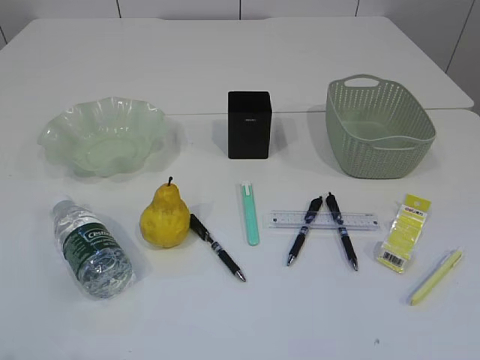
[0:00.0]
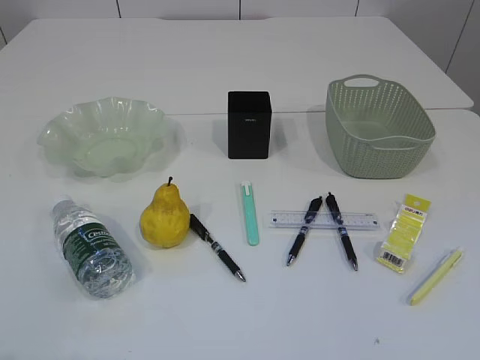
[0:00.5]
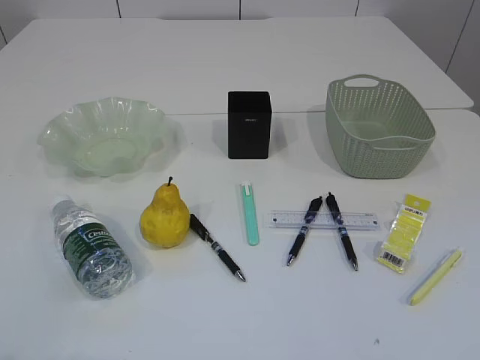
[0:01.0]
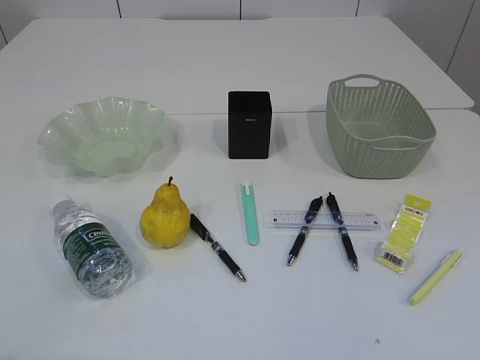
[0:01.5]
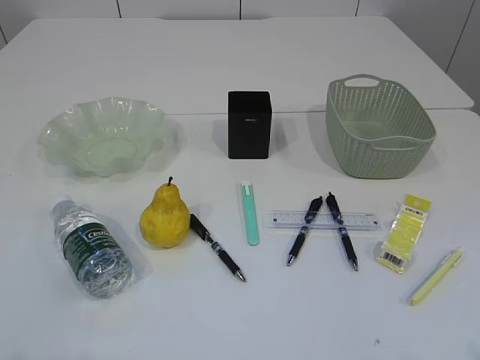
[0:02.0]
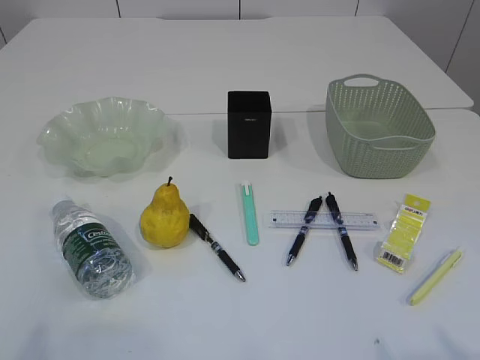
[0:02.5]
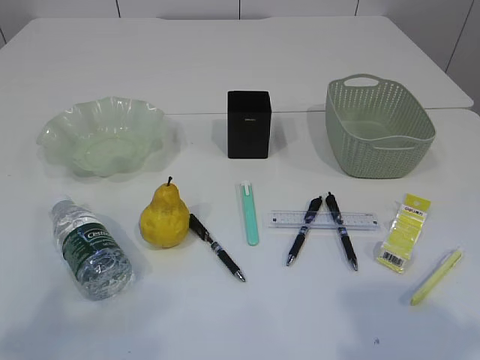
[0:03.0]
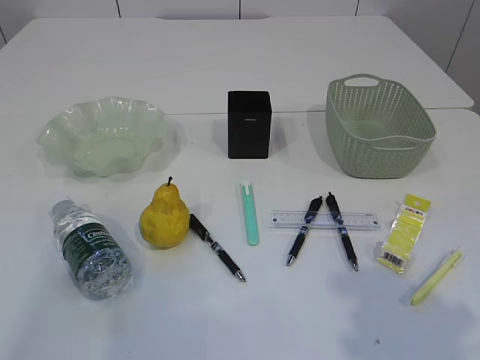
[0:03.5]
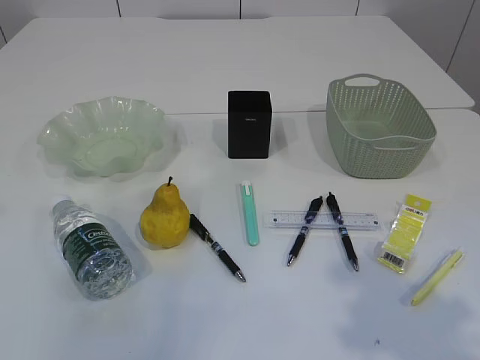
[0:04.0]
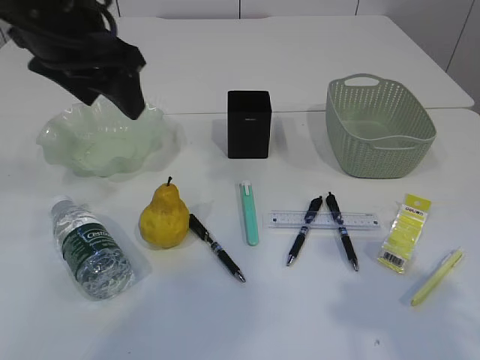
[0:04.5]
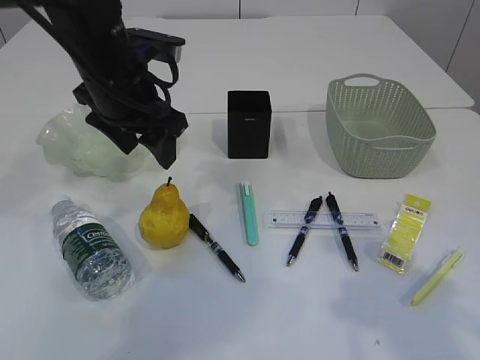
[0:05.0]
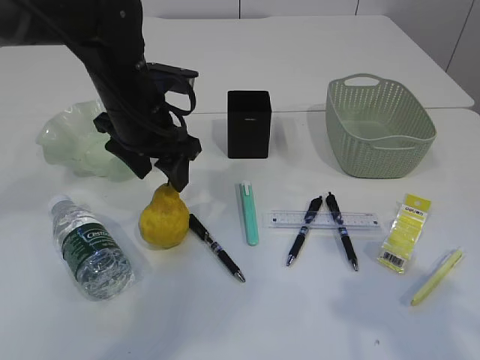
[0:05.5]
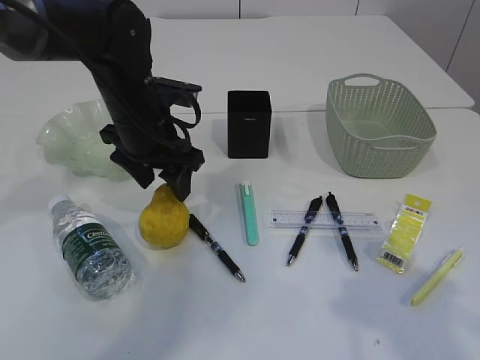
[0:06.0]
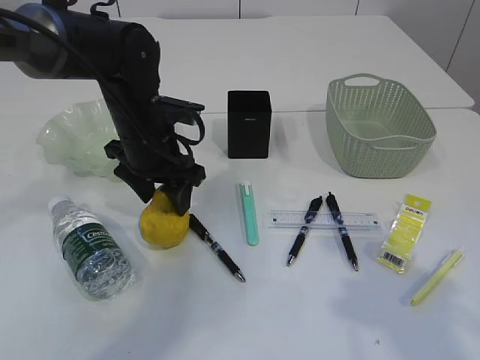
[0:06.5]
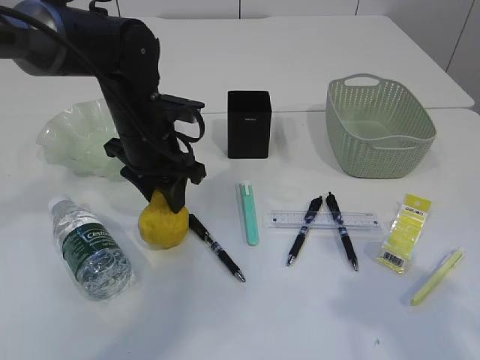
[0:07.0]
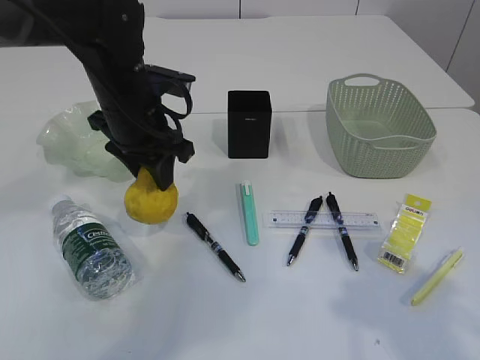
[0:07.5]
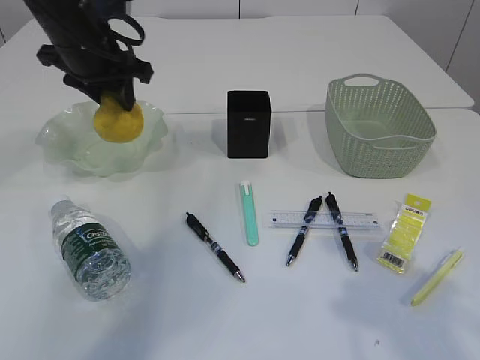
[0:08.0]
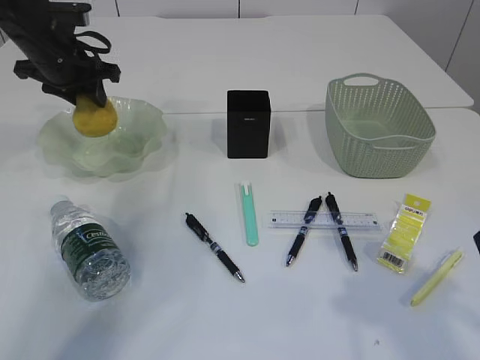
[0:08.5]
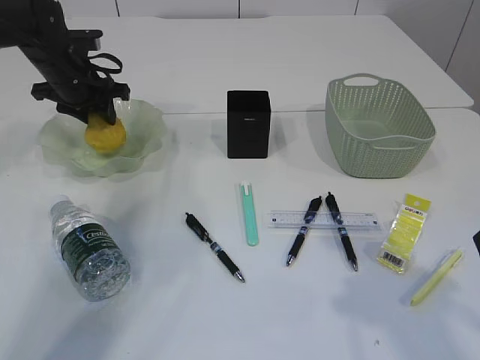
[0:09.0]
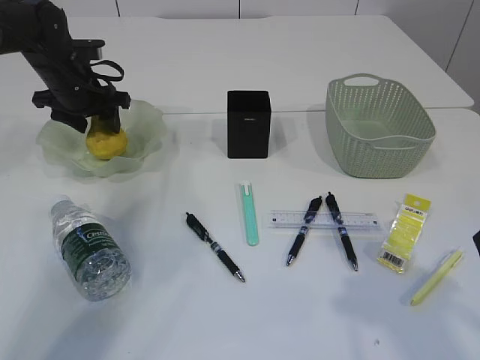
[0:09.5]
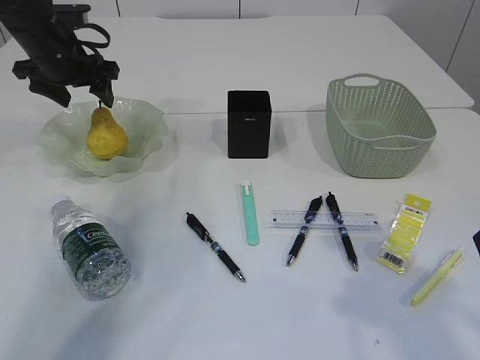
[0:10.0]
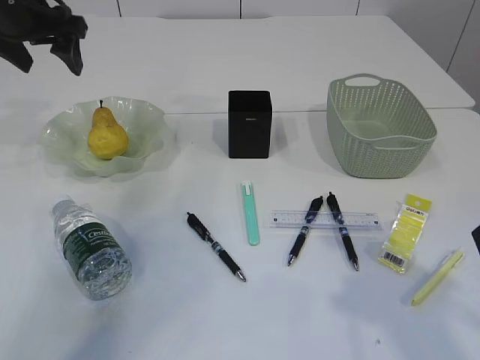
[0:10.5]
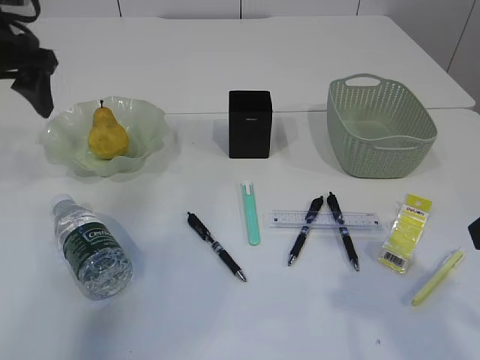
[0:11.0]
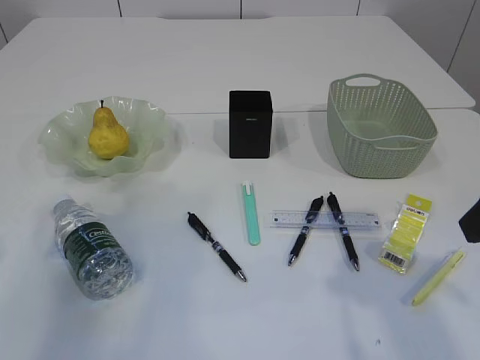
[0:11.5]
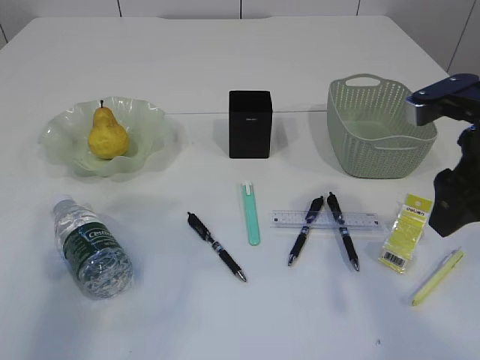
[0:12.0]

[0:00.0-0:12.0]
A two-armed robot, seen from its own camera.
Step, 0:08.0 to 0:10.0: Place the pear in the plate.
0:02.0 to 0:04.0: The left gripper moves forward and upward, approximately 25 cm; the right gripper travels forward by roughly 15 cm.
0:04.0 to 0:06.0: The left gripper shifts about 30 cm downward, forward and to the right.
0:06.0 to 0:08.0: The left gripper travels upward and to the left by about 10 cm, and closes up.
0:08.0 to 0:10.0: The left gripper heads to the left and forward, covering some 10 cm, and opens.
0:10.0 to 0:12.0: The right gripper travels forward by about 10 cm, while the left gripper travels backward by about 30 cm.

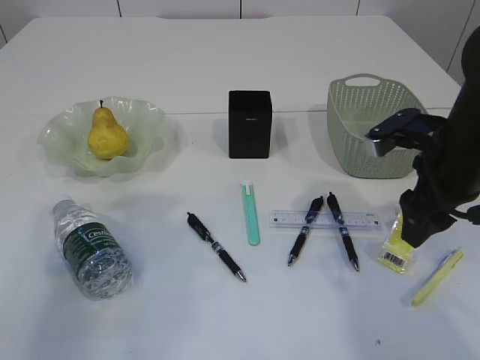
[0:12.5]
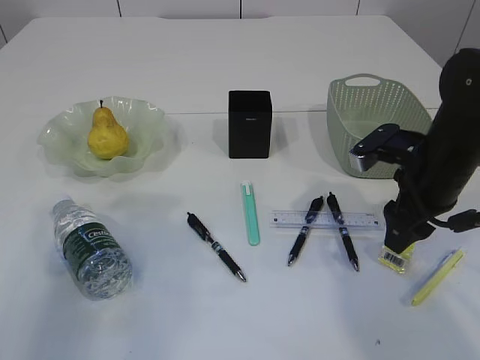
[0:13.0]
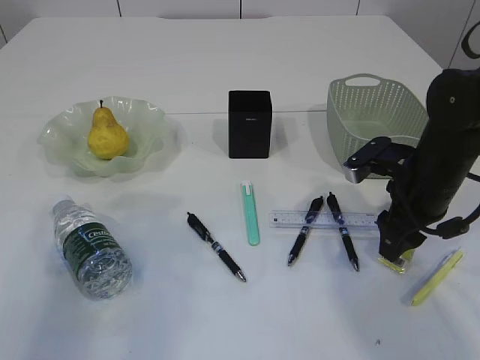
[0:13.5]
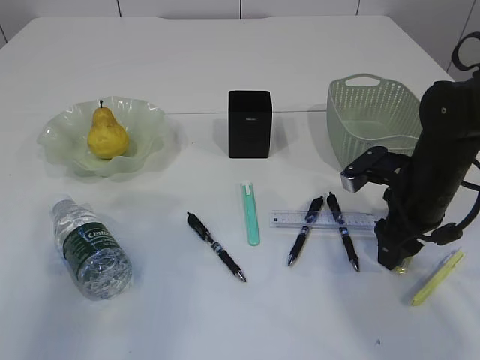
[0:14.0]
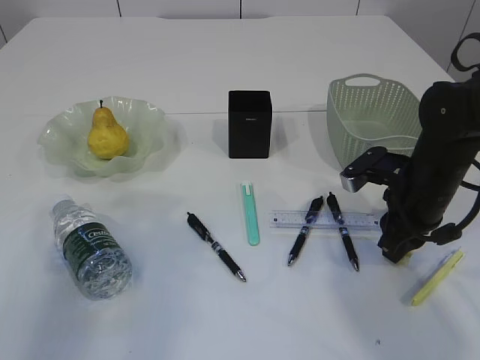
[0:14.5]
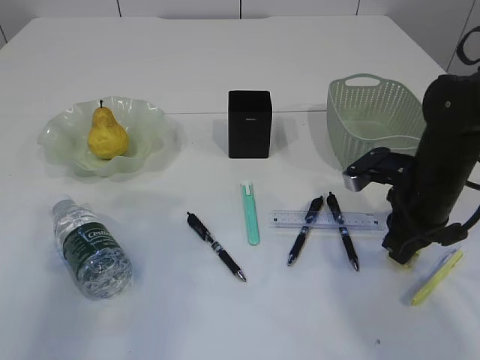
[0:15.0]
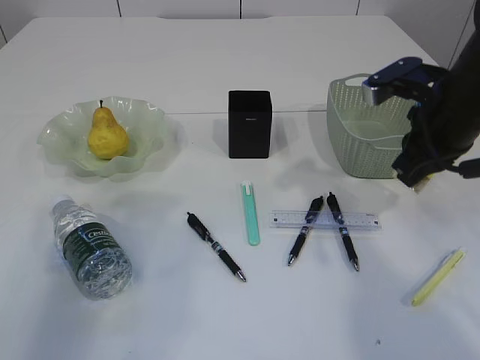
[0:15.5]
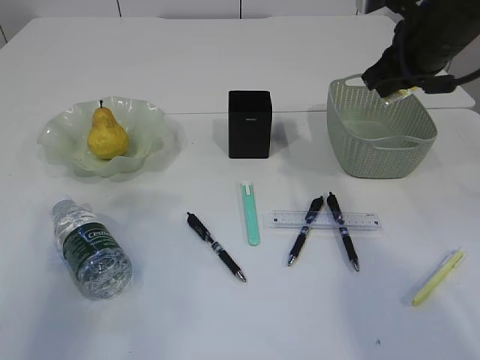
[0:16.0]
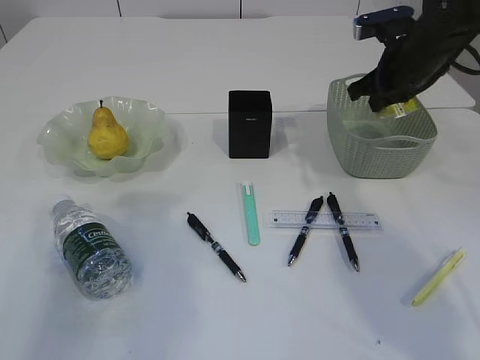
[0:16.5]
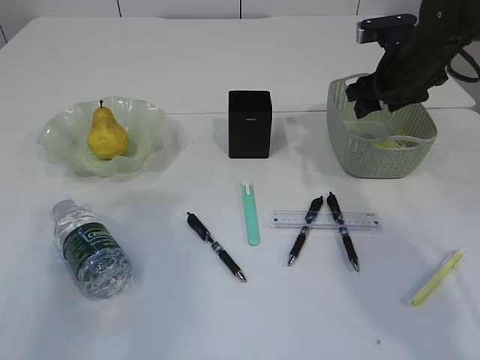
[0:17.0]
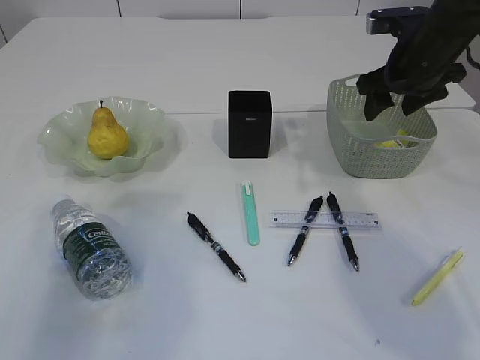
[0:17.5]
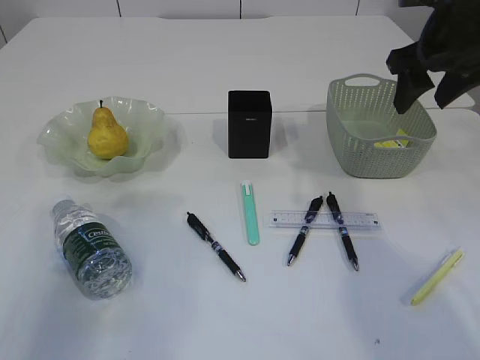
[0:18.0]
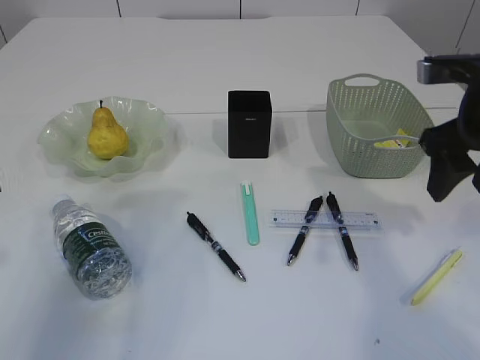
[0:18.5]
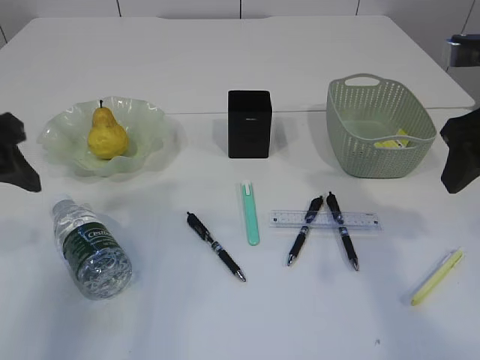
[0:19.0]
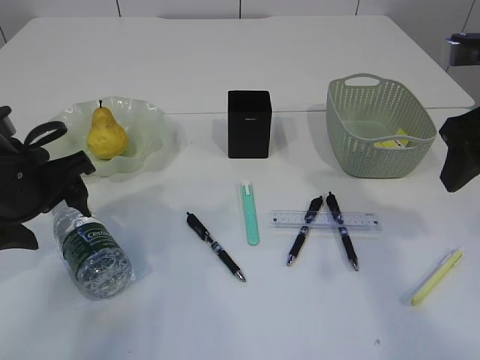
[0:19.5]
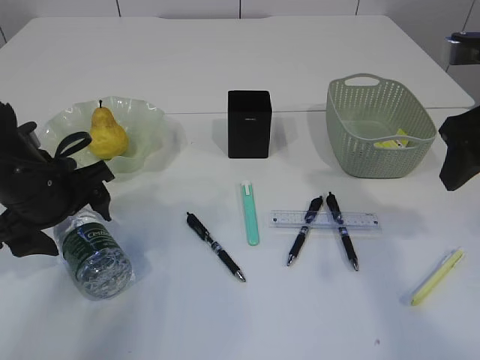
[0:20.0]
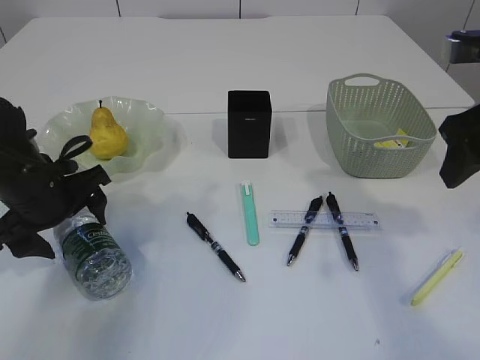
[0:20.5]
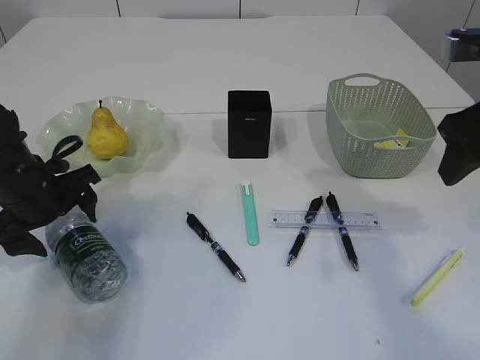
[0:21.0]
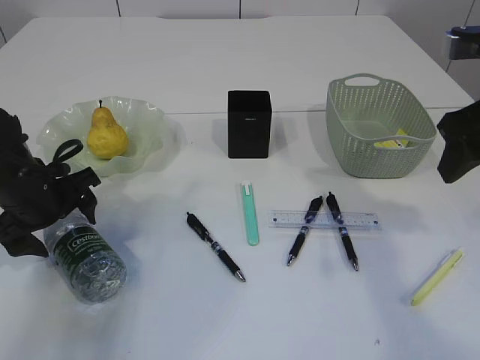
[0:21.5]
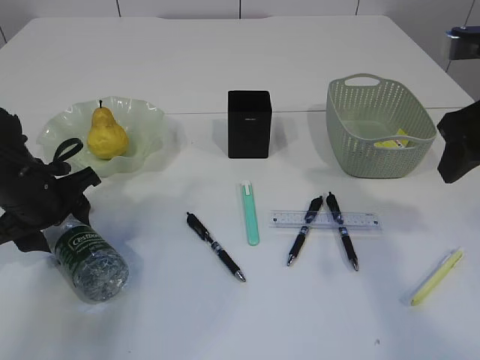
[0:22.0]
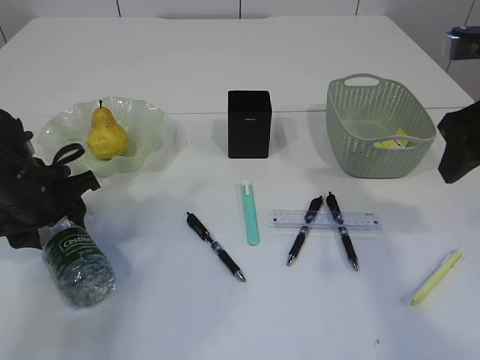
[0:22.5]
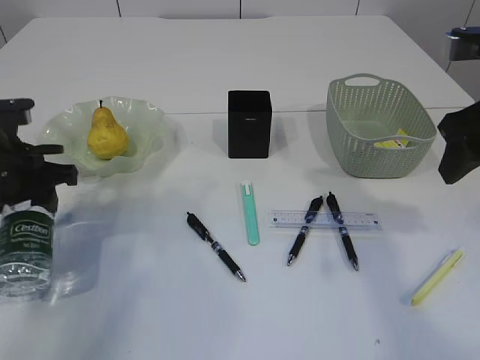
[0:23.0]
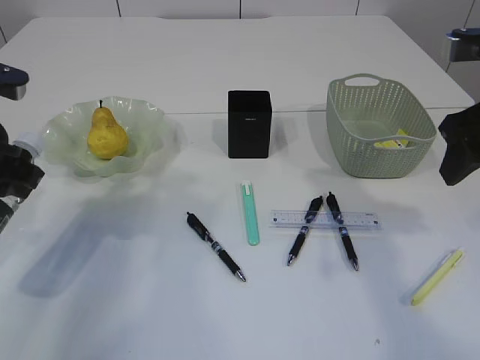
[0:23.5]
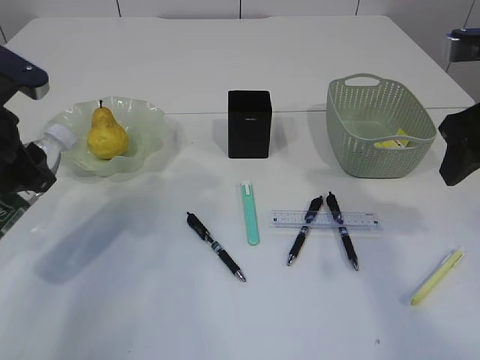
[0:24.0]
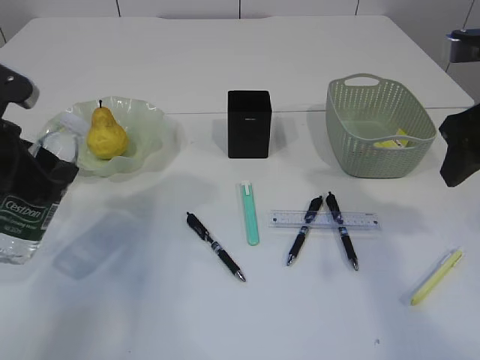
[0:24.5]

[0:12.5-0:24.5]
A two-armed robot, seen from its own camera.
Step, 0:12.5 to 0:16.0: Pick up the waste paper.
Step, 0:16.5 to 0:18.5: Place the waste paper in the basket.
Step, 0:19.0 to 0:23.0: Pick up the bottle with the left arm.
0:12.5 to 0:14.5: The right gripper is displaced downward by some 5 cm, and closes its fingers.
0:14.5 to 0:16.5: The right gripper goes approximately 15 cm forward and upward.
0:16.5 to 0:18.5: The right gripper heads backward, covering about 15 cm, and opens.
0:18.5 to 0:20.5: The left gripper shifts approximately 20 cm downward, forward and to the right.
0:20.5 to 0:22.5: The left gripper closes its fingers.
0:22.5 to 0:24.5: The left gripper is displaced upward and backward by about 10 cm.

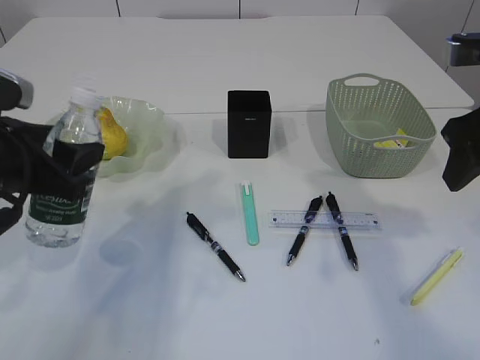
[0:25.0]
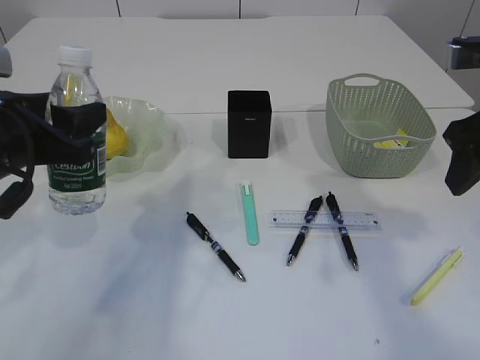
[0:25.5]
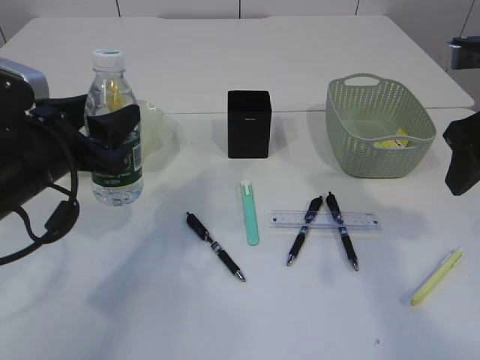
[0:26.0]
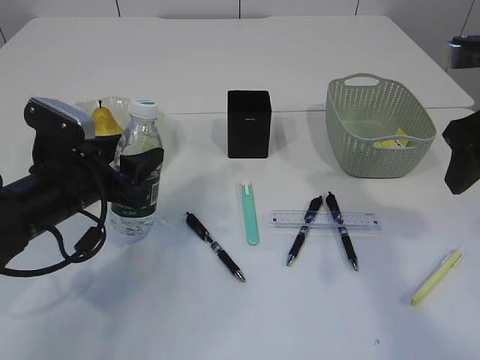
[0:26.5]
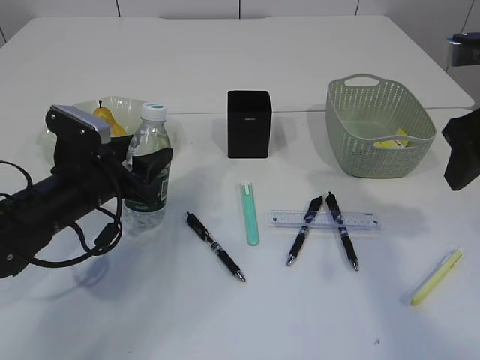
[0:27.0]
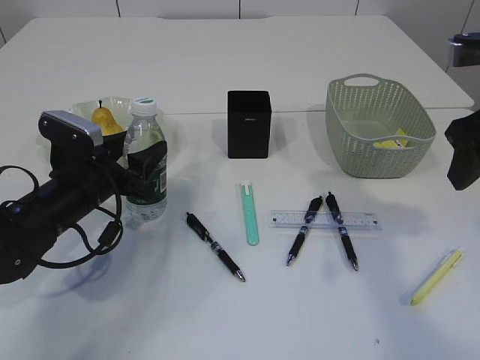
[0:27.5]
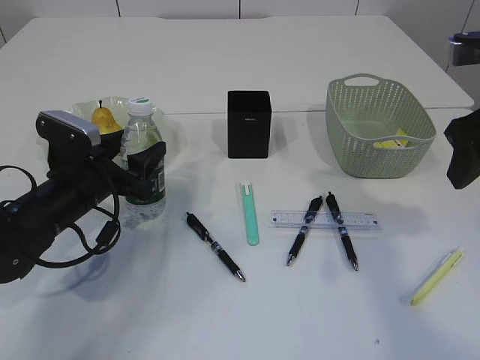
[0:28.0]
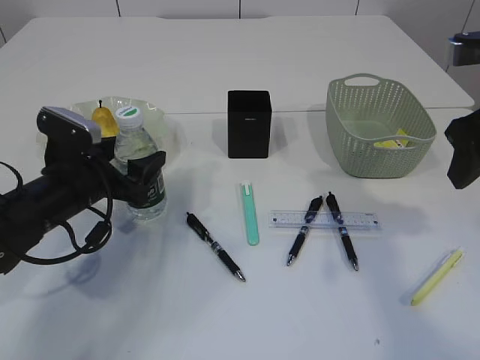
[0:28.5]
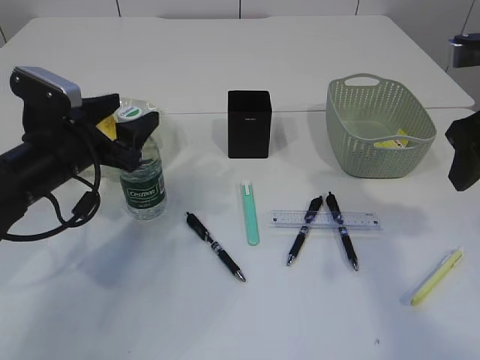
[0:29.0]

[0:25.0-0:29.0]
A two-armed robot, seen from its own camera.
0:25.0 to 0:27.0: The left gripper is displaced downward and forward by some 15 cm.
0:27.0 to 0:29.0: The left gripper opens.
